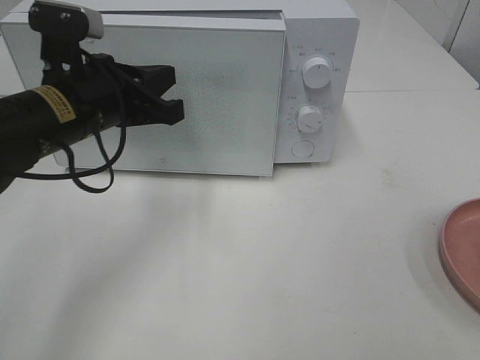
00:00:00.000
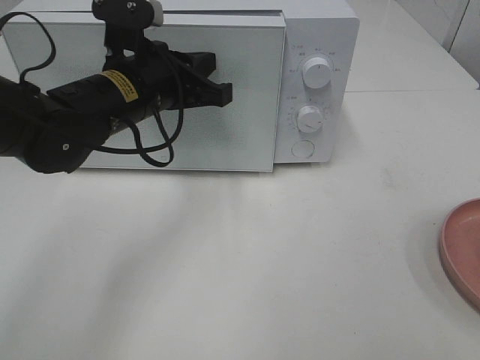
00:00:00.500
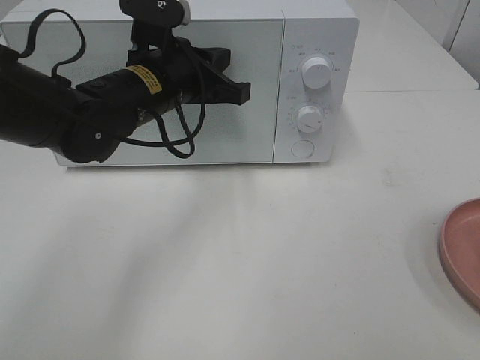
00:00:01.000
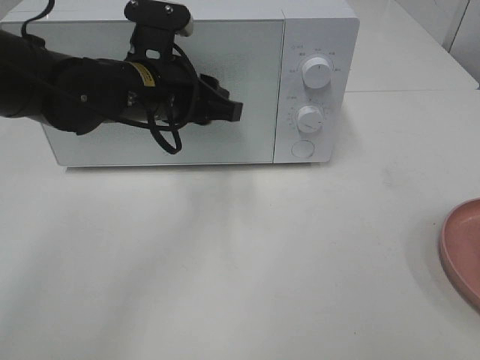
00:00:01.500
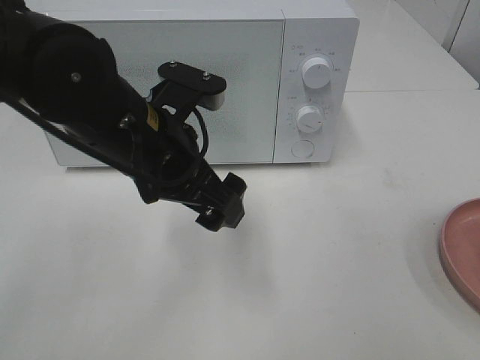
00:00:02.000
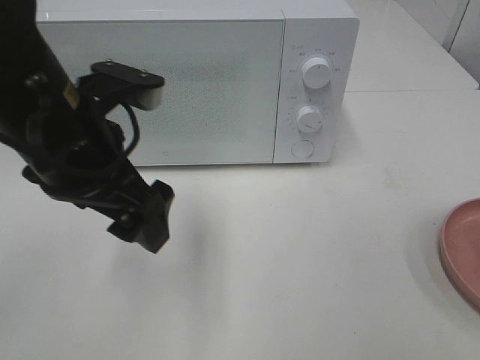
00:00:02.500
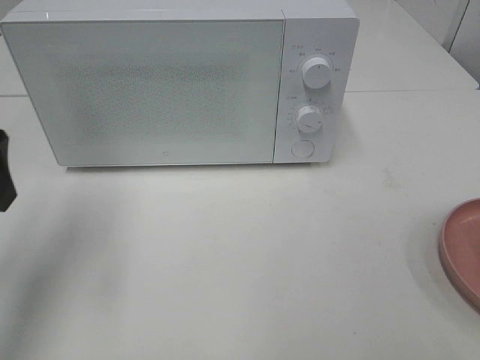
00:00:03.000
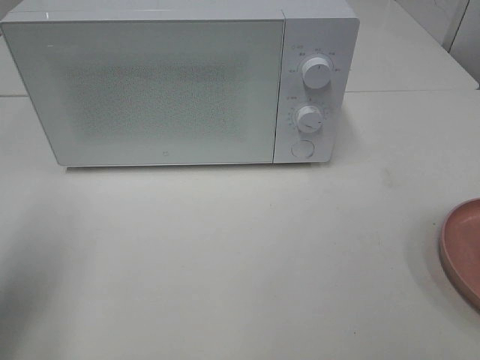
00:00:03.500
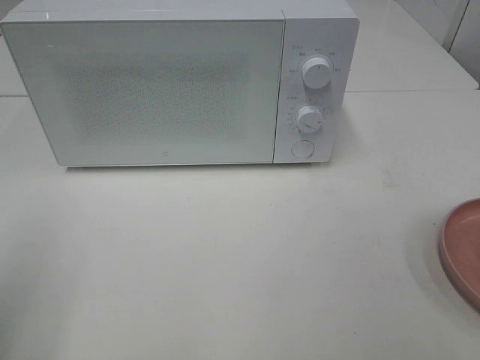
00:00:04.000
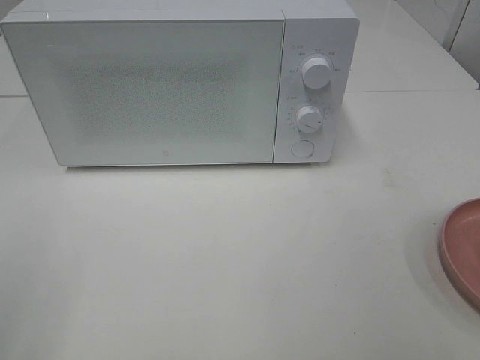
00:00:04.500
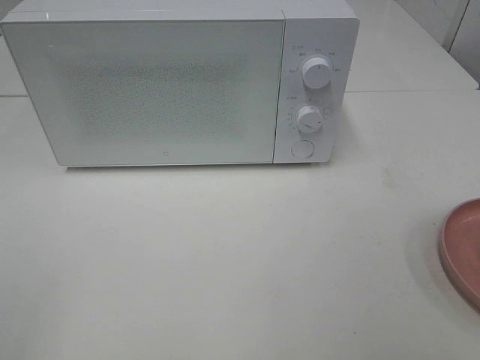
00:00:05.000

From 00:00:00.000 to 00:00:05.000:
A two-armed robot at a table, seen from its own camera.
Task of the whole recording: Heat the burger.
From 00:00:00.000 to 00:00:02.500: The left gripper shifts roughly 5 cm backward, and opens.
From 00:00:02.500 to 00:00:05.000: The left gripper is displaced backward and to the left by some 30 cm.

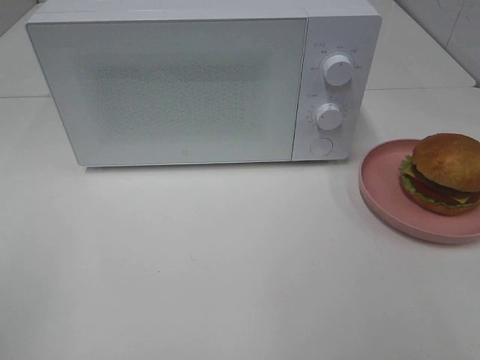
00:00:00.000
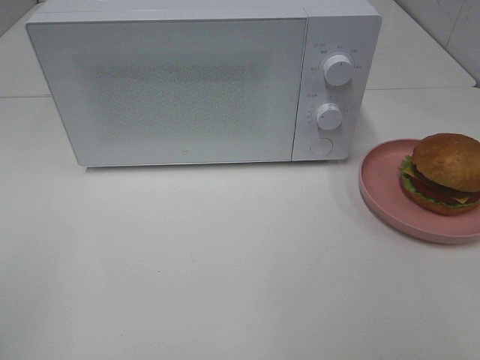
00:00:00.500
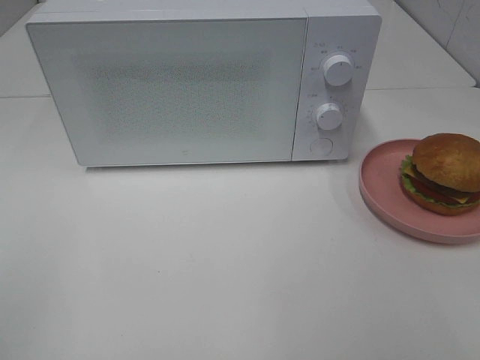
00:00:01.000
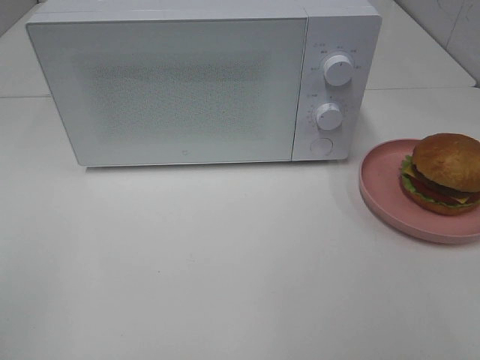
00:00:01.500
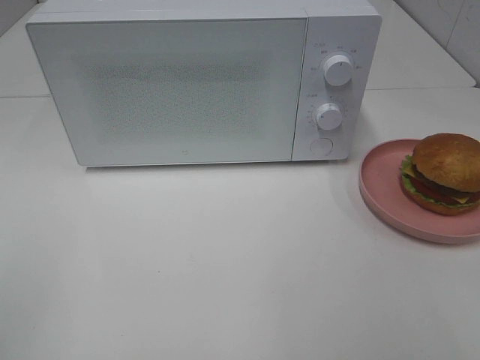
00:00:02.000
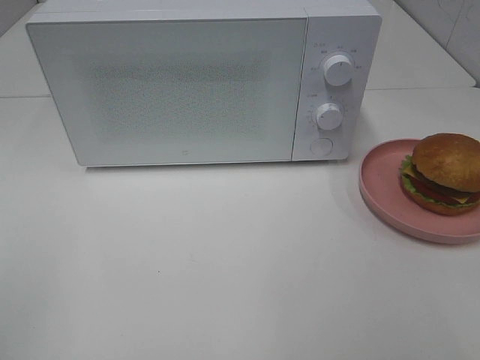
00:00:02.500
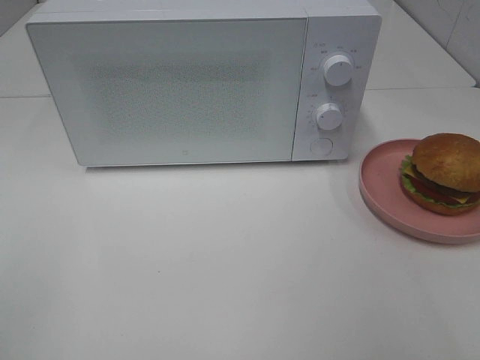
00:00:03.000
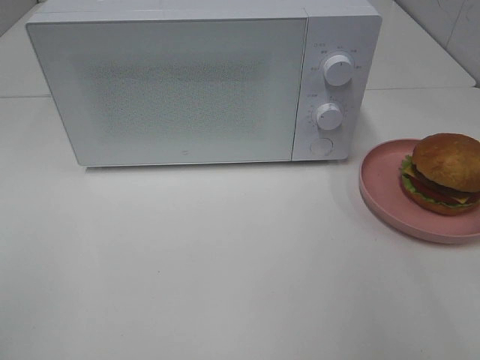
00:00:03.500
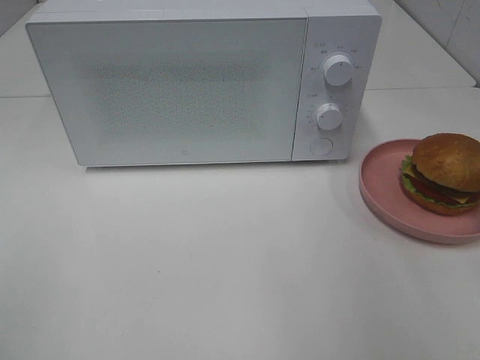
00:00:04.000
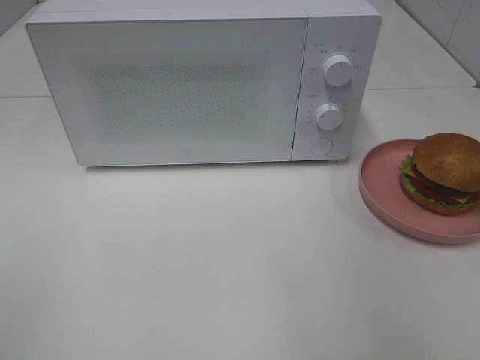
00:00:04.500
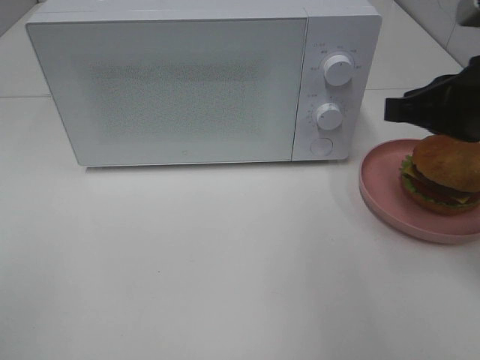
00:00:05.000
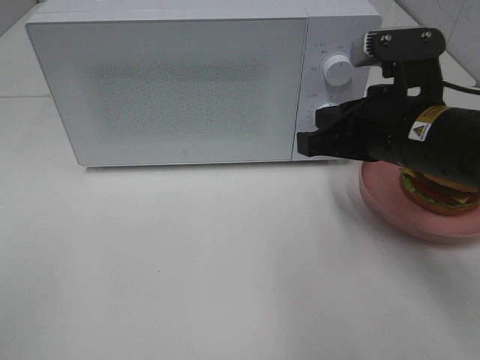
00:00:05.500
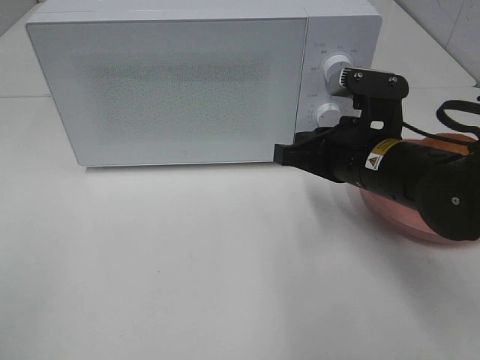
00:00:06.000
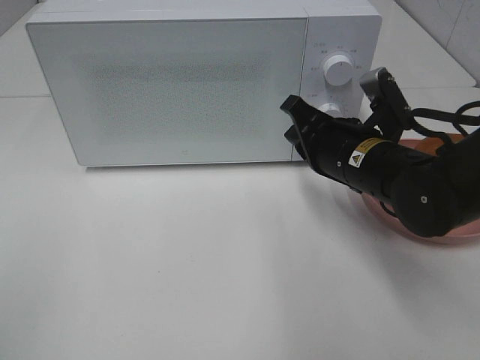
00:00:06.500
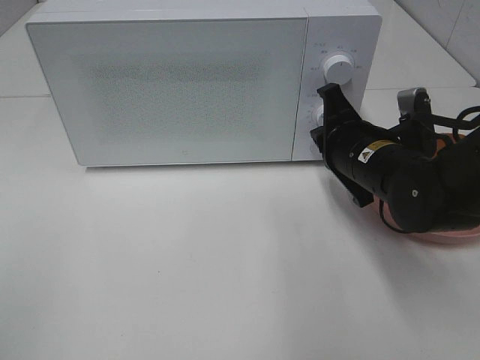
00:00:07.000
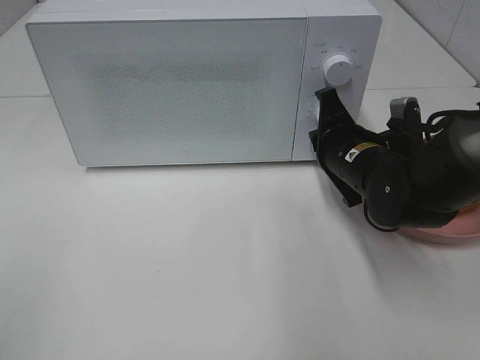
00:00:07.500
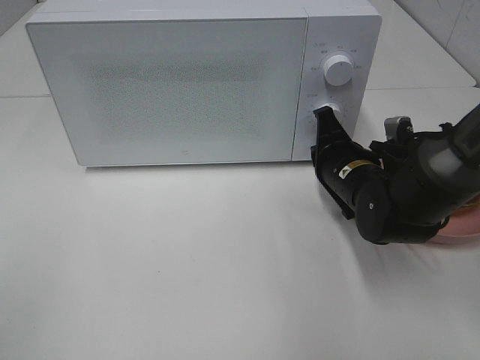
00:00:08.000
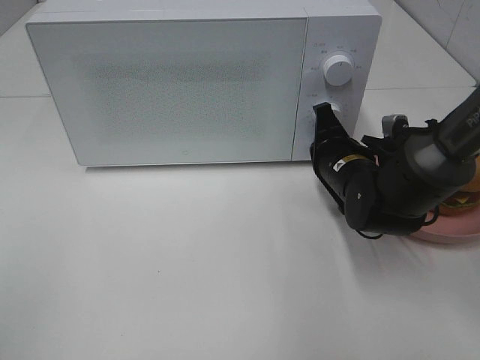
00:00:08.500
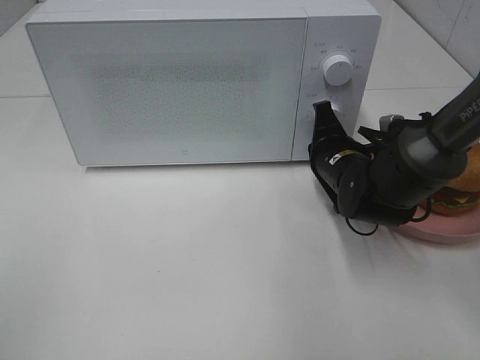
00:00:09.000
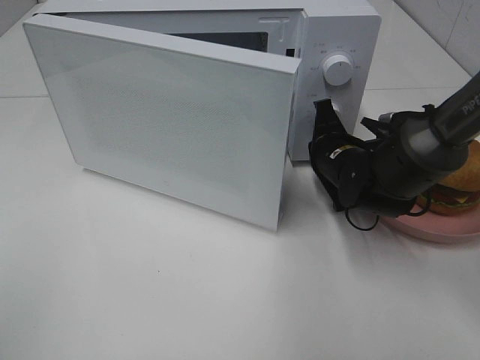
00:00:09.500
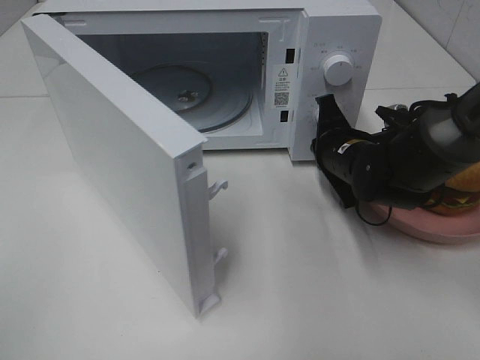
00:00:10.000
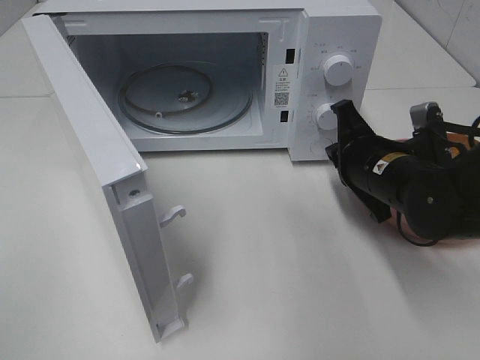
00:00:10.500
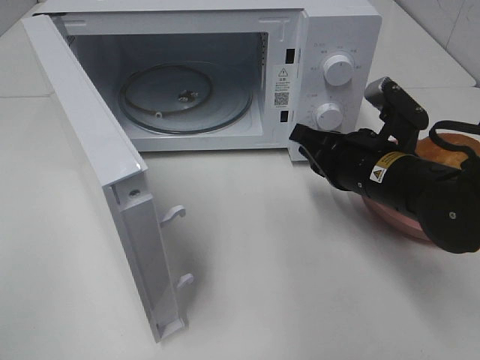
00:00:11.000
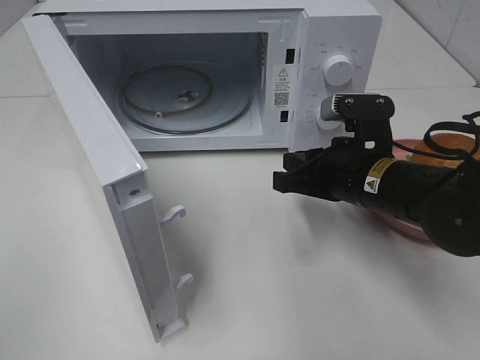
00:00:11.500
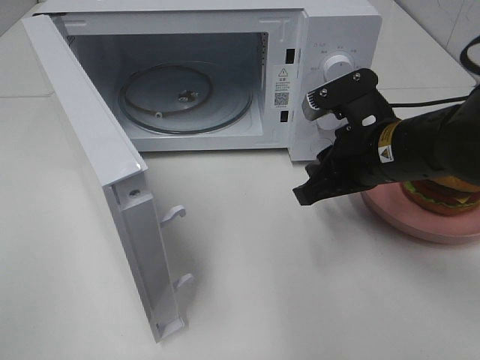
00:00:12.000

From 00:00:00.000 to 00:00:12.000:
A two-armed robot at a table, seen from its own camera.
Task of the whole recording: Heat the burger.
Step, from 00:00:00.000 to 00:00:10.000: Right hand: press the switch.
From 00:00:00.000 to 00:00:02.000: The two grippers keep their place.
From 00:00:04.000 to 00:00:06.000: The right gripper travels to the left, downward and forward by roughly 25 cm, and closes up.
From 00:00:06.000 to 00:00:08.000: The right gripper travels downward and forward by about 10 cm.
From 00:00:10.000 to 00:00:12.000: The right gripper travels backward and upward by approximately 10 cm.

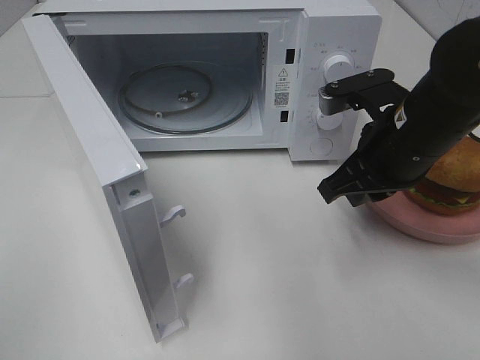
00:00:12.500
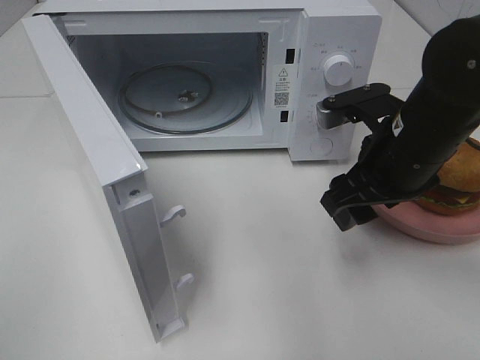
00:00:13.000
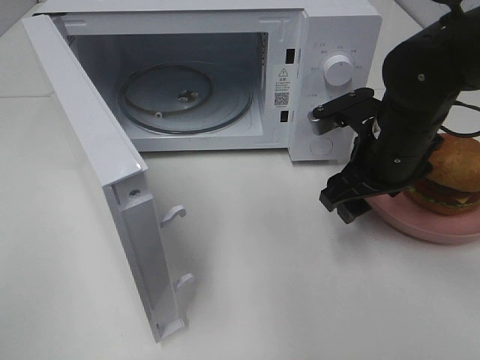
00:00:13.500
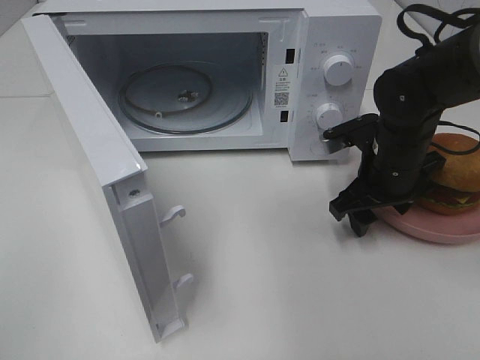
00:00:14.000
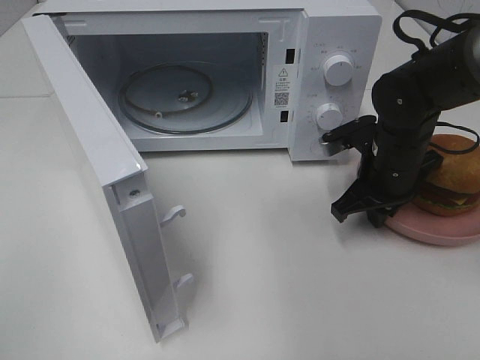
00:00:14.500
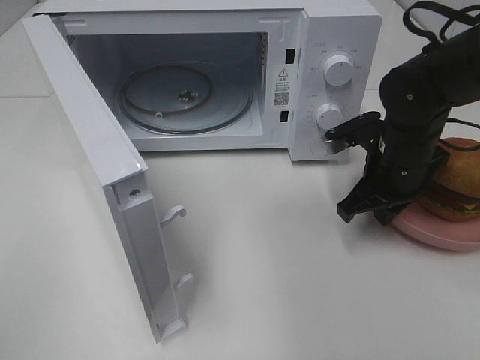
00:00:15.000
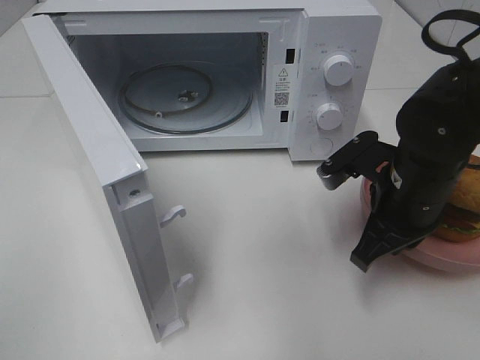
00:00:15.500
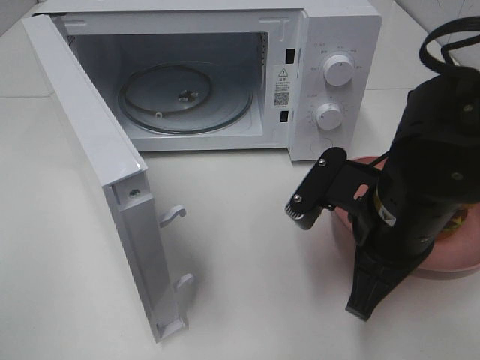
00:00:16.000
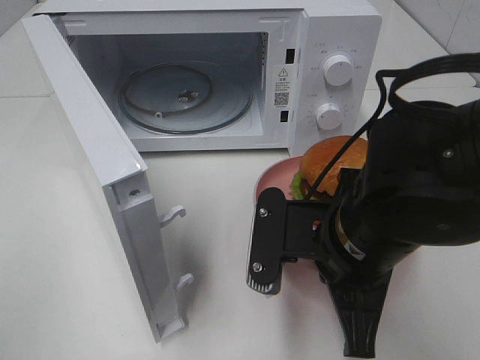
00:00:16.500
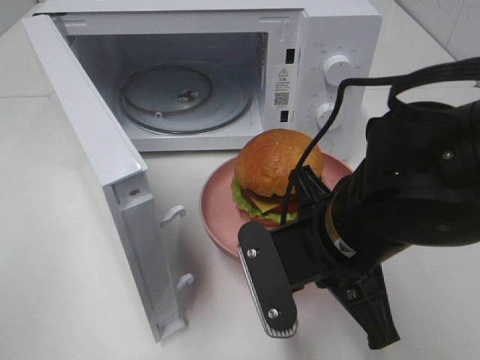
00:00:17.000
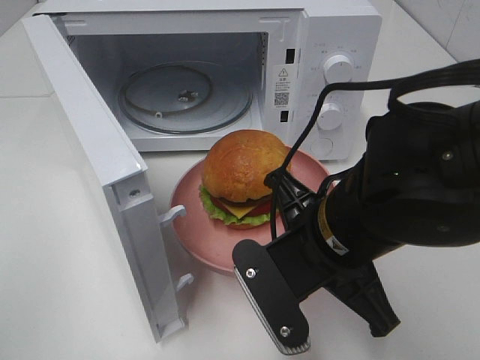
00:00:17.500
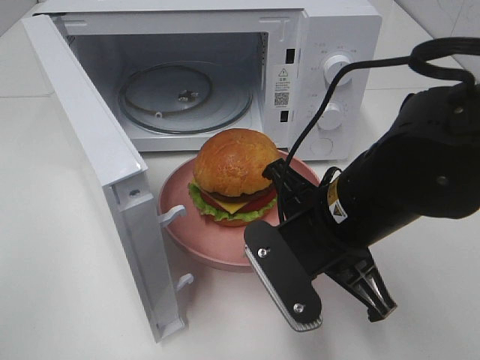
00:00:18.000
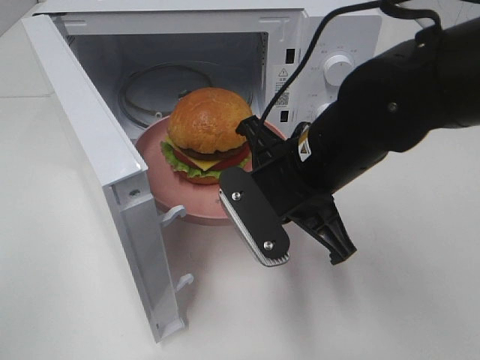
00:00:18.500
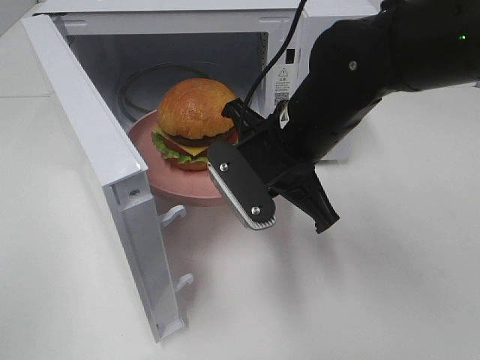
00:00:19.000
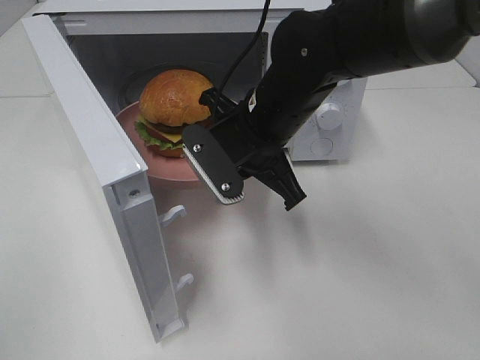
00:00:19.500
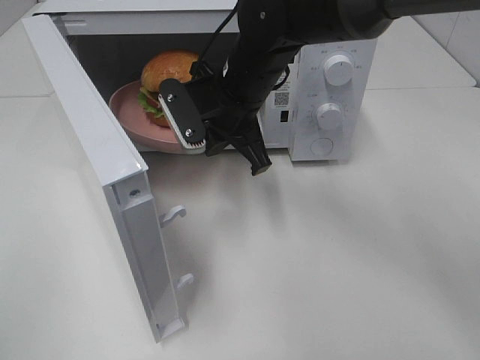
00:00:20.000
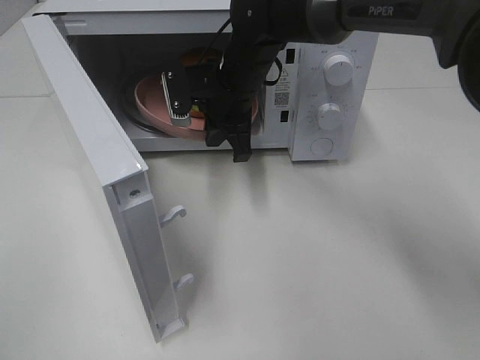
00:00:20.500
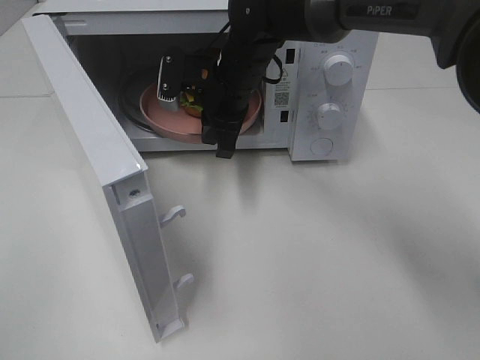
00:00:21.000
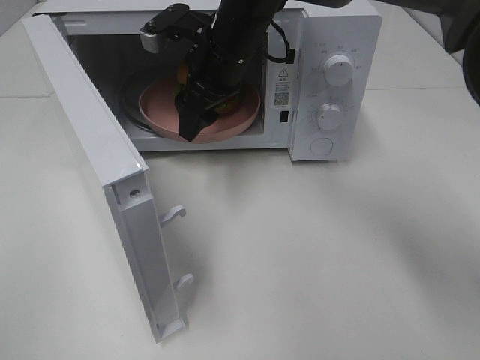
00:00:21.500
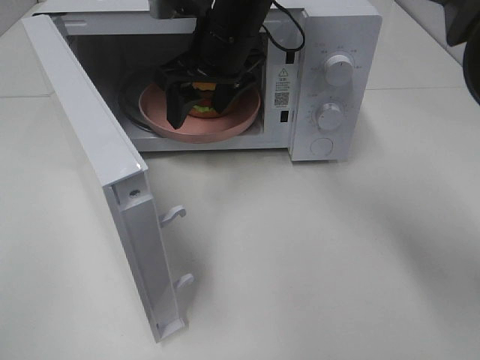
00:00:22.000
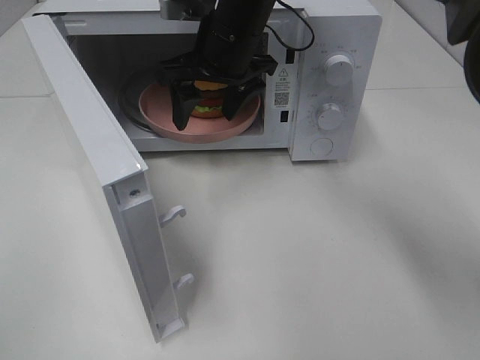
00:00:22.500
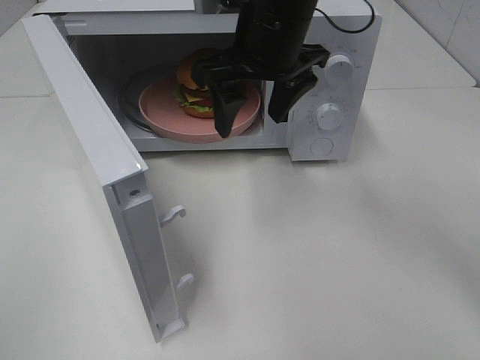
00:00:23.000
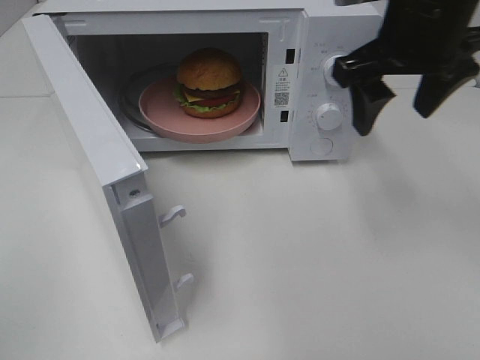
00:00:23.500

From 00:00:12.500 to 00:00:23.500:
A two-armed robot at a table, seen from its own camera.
Task of the whole recording: Heat the burger.
Step, from 00:00:12.500 to 00:00:14.500: Right hand: grab the plate with the hamburger.
Step, from 00:00:15.000 to 00:00:21.000: Right hand: place the plate in the microwave.
From 00:00:12.500 to 00:00:14.500: The right gripper travels downward and forward by about 10 cm, and opens, then closes again.
From 00:00:14.500 to 00:00:16.000: The right gripper travels backward and upward by about 15 cm.
From 00:00:18.000 to 00:00:20.000: The right gripper shifts roughly 20 cm forward and to the left.
From 00:00:20.000 to 00:00:21.500: The right gripper opens.
From 00:00:21.500 to 00:00:23.500: The right gripper shifts some 20 cm to the right, backward and upward.
